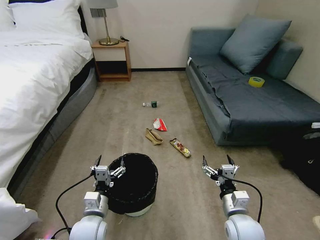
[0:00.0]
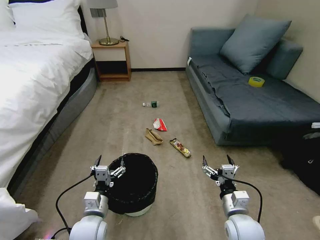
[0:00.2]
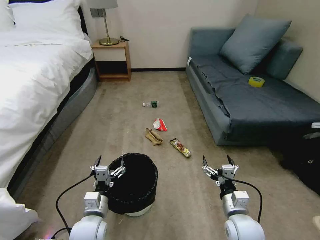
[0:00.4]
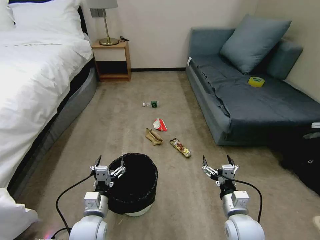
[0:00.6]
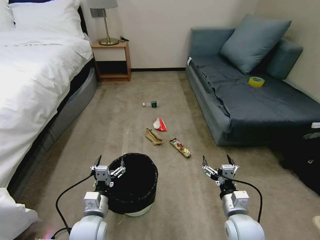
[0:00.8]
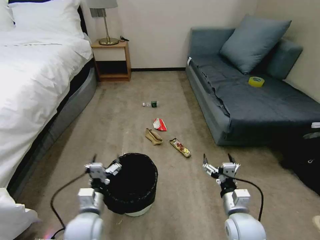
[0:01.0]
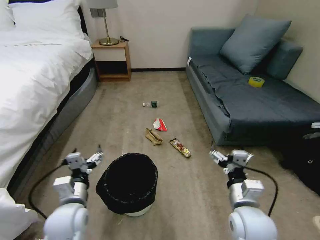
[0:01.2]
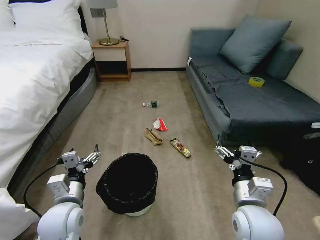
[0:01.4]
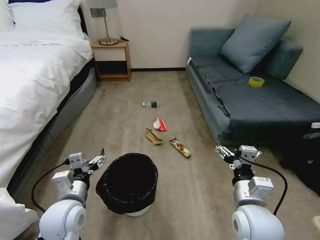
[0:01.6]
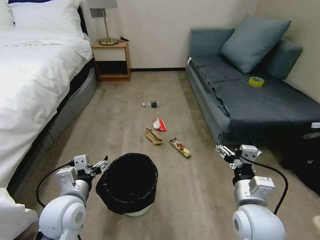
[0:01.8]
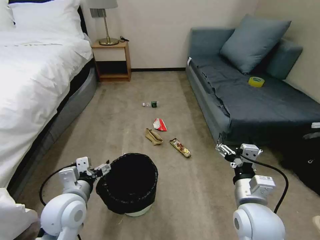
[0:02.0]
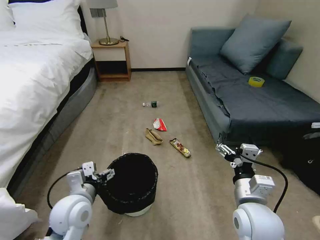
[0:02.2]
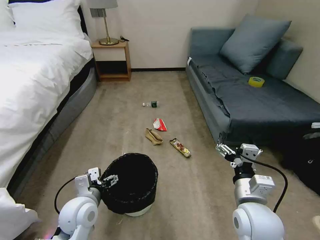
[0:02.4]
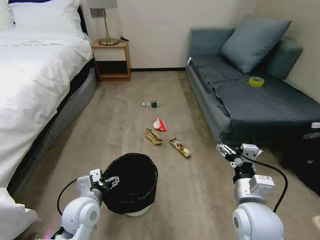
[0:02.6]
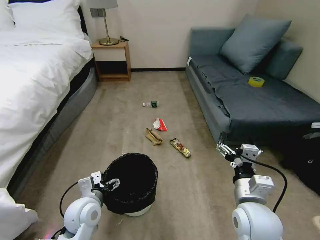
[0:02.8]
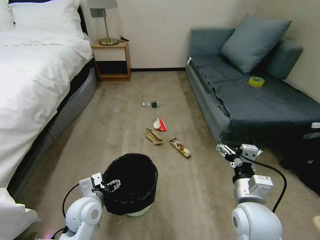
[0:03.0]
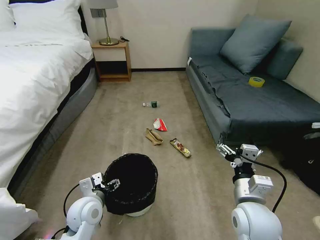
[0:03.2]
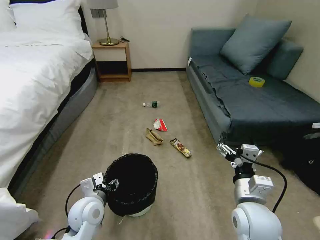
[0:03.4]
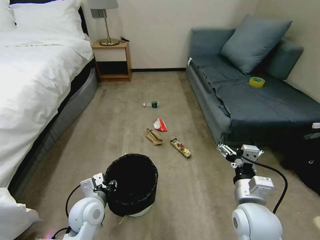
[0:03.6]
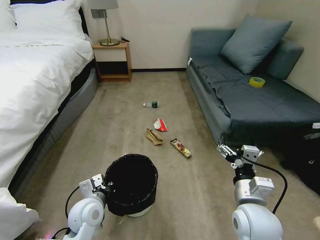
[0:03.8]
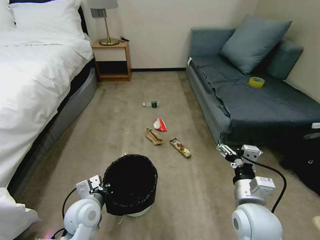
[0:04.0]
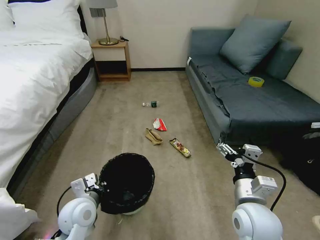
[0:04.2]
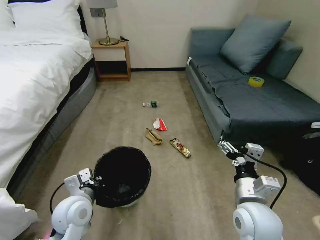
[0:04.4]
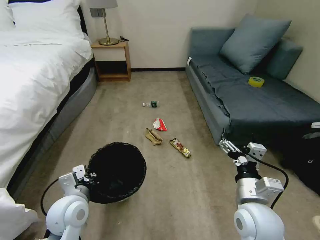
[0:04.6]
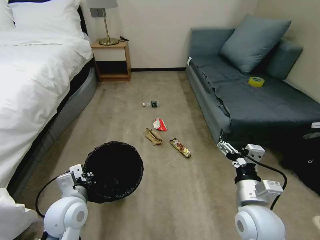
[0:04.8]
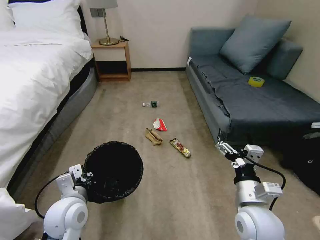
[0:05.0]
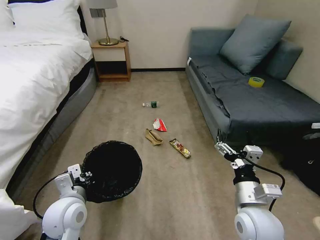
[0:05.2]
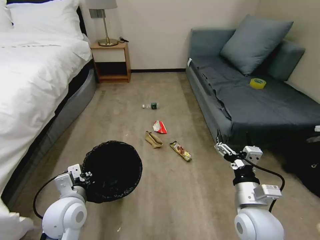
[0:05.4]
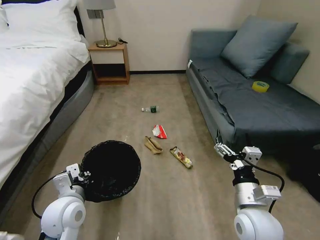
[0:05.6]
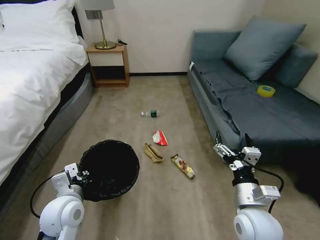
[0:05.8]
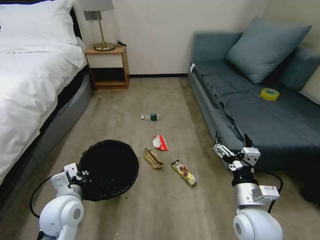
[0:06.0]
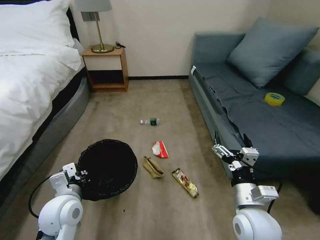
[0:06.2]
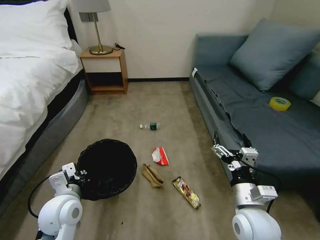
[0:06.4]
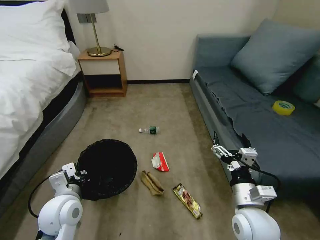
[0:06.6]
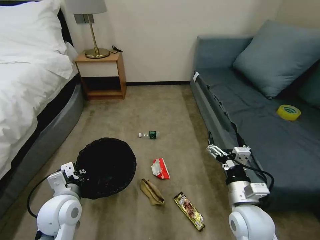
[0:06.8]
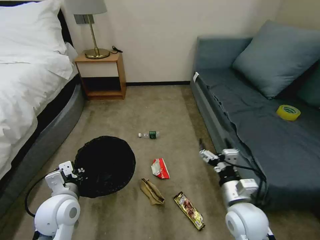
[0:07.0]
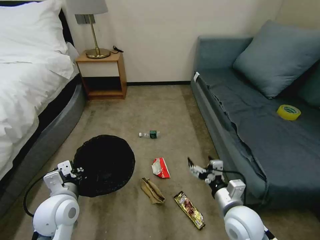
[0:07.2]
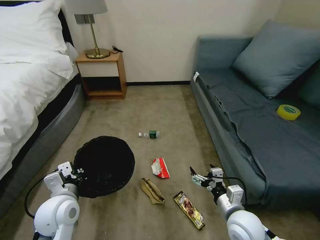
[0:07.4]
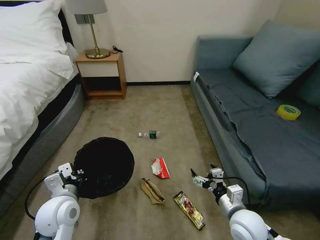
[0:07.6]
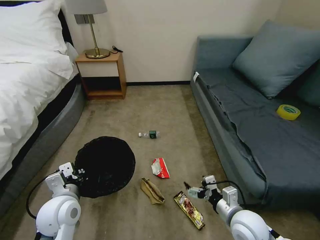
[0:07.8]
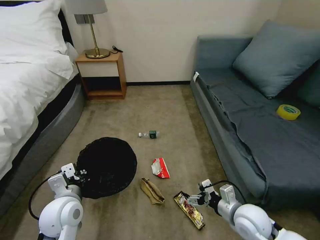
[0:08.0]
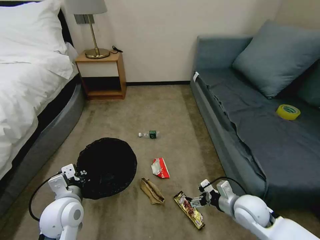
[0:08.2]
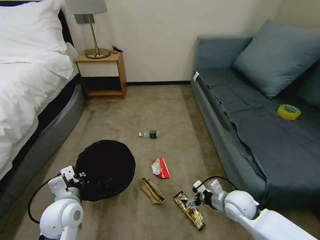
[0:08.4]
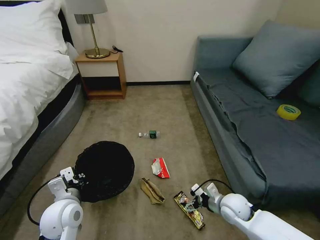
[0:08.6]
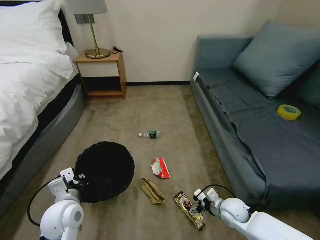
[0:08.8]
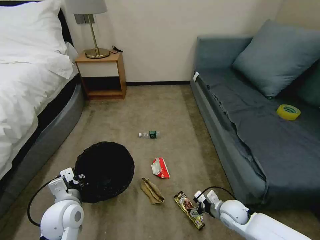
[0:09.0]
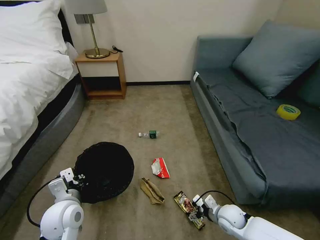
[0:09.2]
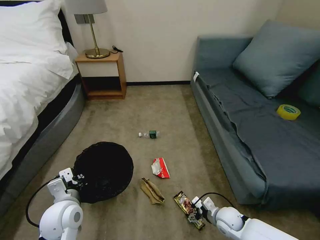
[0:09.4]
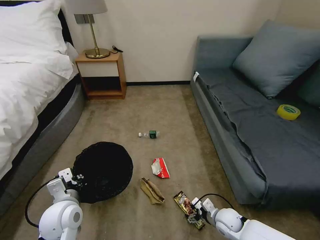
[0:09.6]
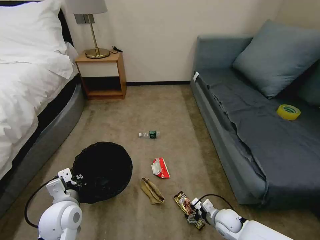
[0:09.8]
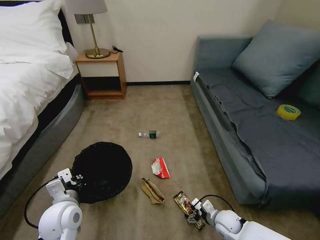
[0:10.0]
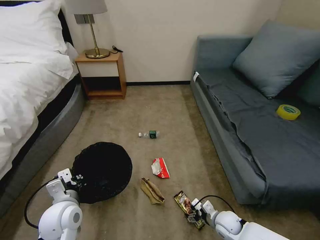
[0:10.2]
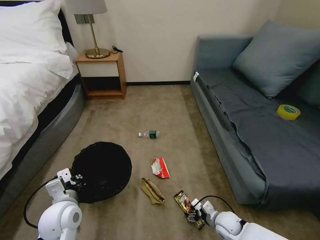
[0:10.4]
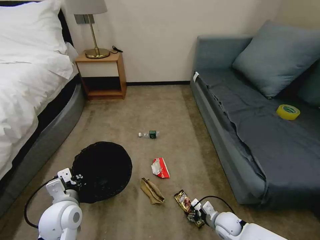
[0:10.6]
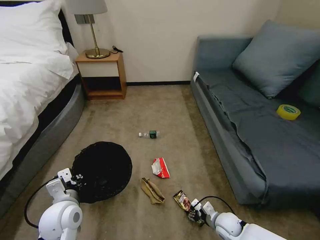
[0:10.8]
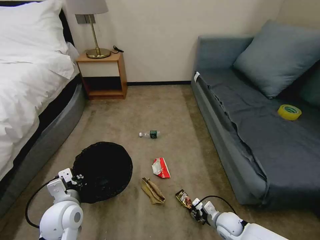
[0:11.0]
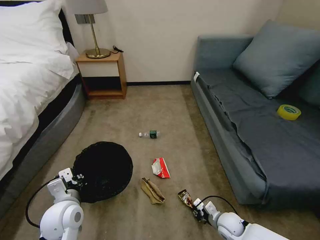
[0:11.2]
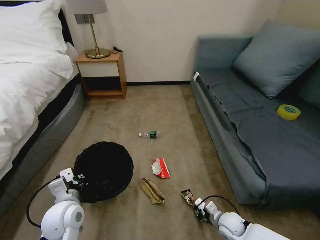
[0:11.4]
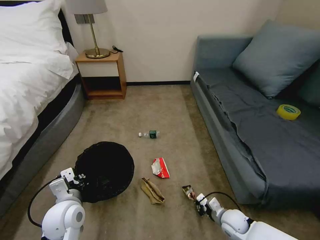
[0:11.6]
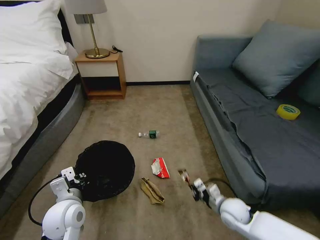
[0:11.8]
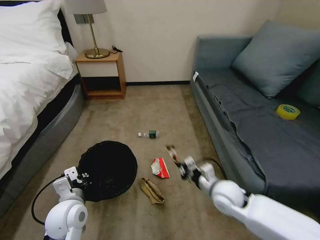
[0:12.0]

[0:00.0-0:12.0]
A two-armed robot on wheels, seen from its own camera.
Task of the whole recording: Pick up the trash bin, then pick up the garbage on the floor and place it into the trash bin.
0:01.6 to 0:03.0: The left gripper shifts roughly 5 cm downward.
0:03.0 to 0:04.4: The left gripper closes its fingers.
0:06.0 to 0:07.6: The right gripper goes approximately 10 cm downward.
0:07.6 to 0:09.0: The right gripper travels downward and forward by approximately 15 cm.
0:09.0 to 0:10.4: The right gripper travels downward by about 5 cm.
0:10.4 to 0:12.0: The right gripper is displaced upward by roughly 20 cm, and closes.

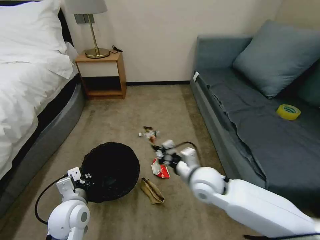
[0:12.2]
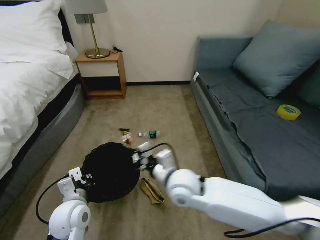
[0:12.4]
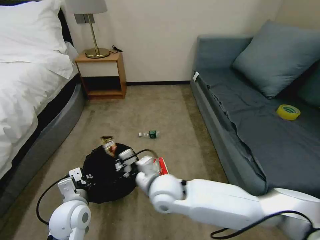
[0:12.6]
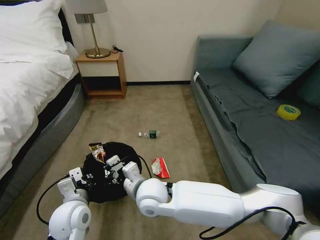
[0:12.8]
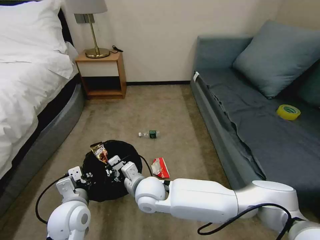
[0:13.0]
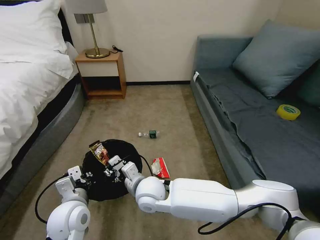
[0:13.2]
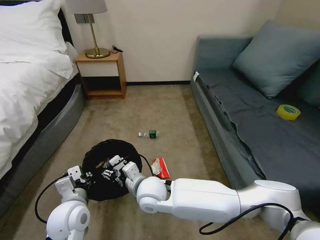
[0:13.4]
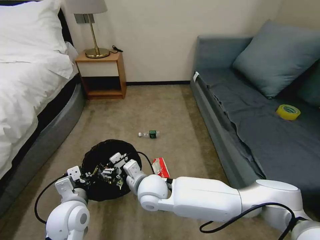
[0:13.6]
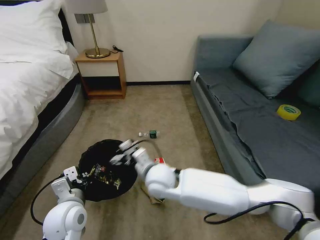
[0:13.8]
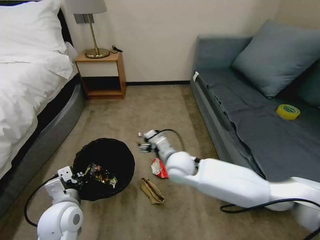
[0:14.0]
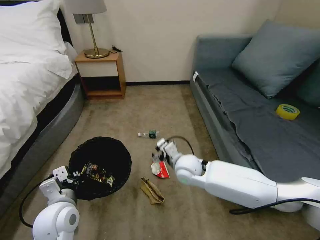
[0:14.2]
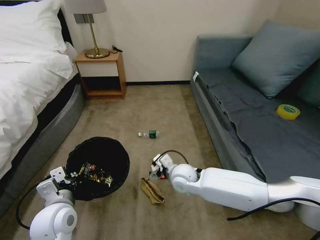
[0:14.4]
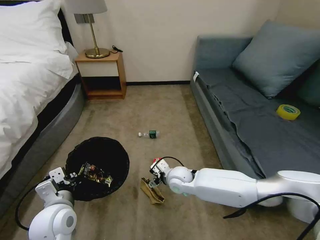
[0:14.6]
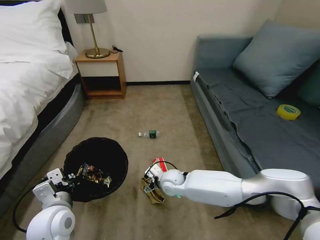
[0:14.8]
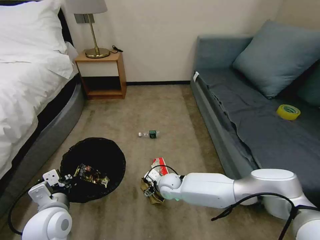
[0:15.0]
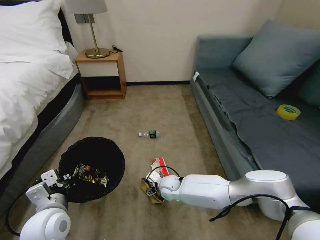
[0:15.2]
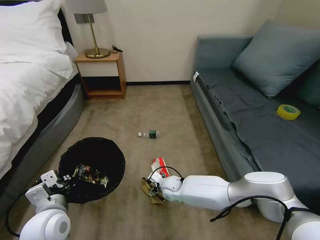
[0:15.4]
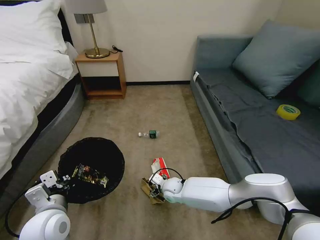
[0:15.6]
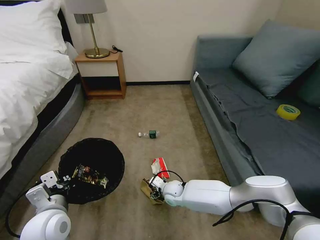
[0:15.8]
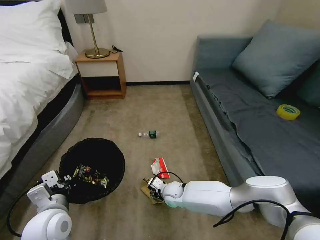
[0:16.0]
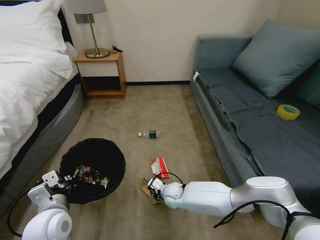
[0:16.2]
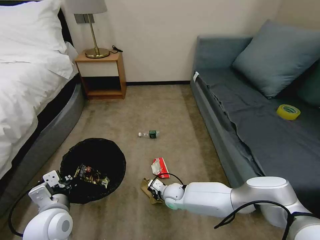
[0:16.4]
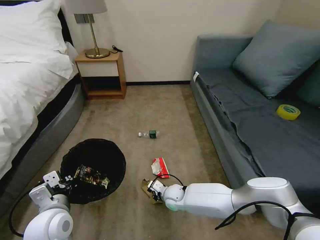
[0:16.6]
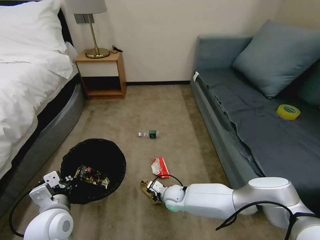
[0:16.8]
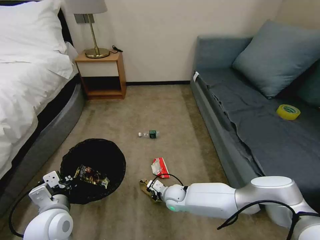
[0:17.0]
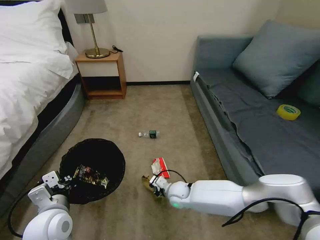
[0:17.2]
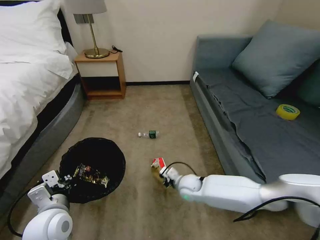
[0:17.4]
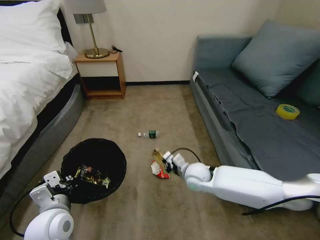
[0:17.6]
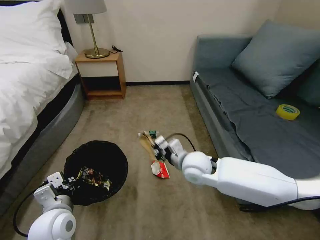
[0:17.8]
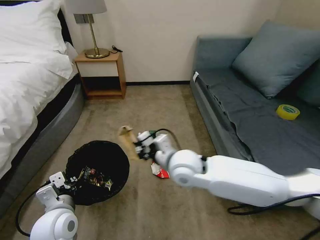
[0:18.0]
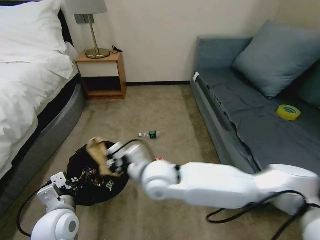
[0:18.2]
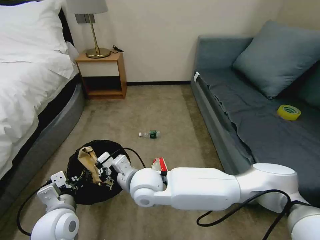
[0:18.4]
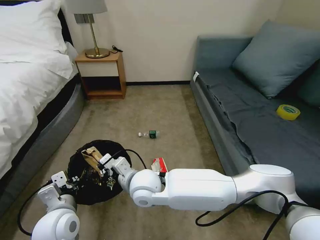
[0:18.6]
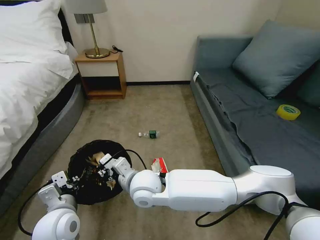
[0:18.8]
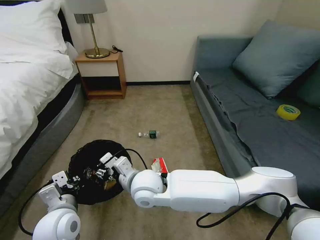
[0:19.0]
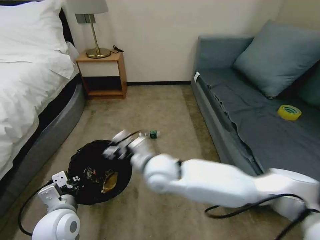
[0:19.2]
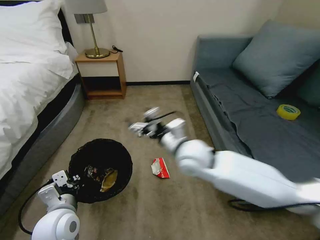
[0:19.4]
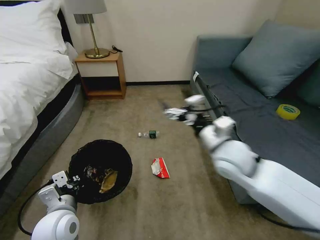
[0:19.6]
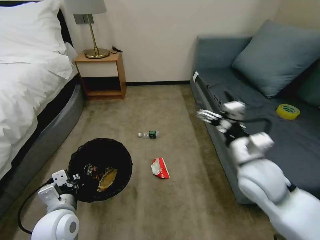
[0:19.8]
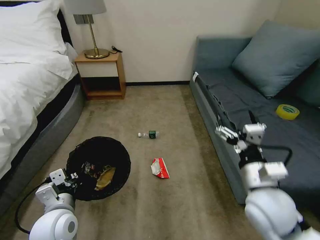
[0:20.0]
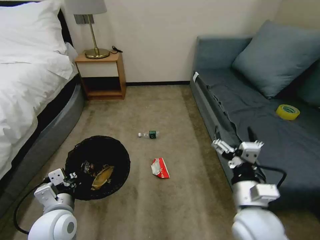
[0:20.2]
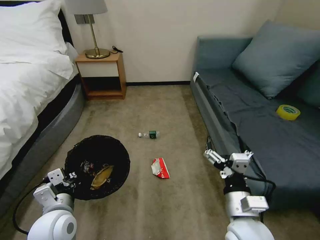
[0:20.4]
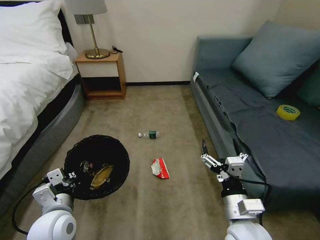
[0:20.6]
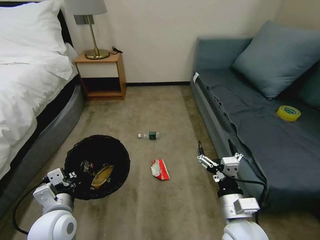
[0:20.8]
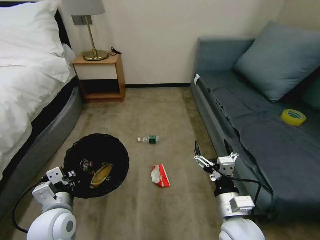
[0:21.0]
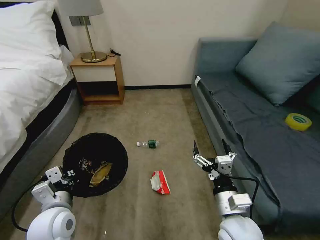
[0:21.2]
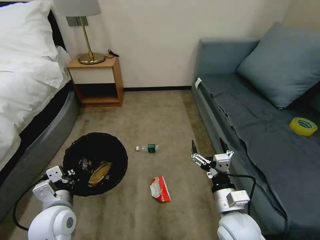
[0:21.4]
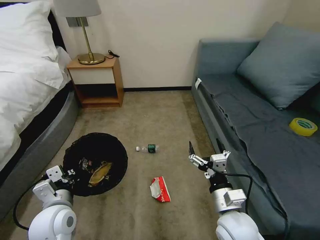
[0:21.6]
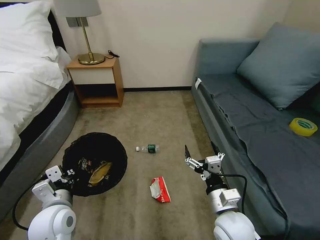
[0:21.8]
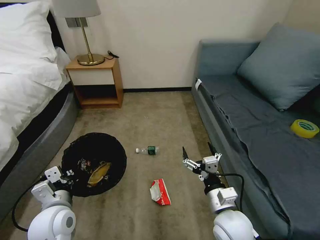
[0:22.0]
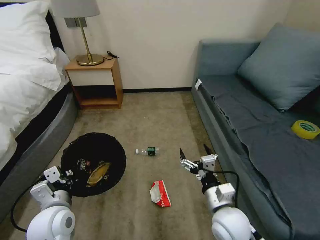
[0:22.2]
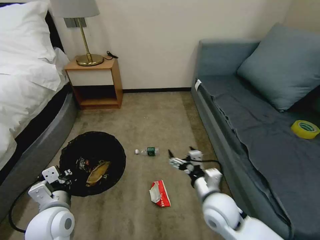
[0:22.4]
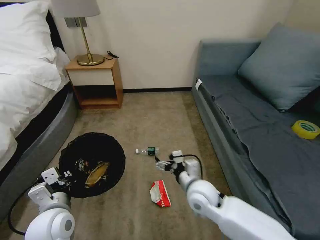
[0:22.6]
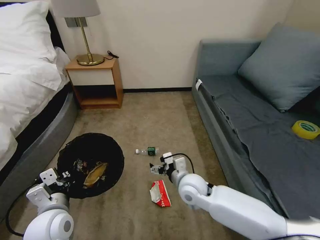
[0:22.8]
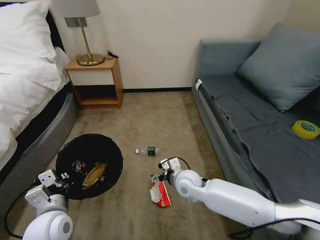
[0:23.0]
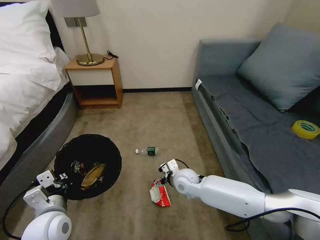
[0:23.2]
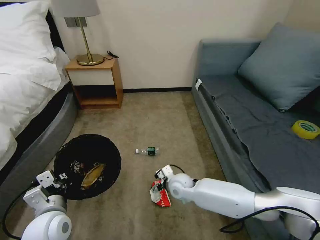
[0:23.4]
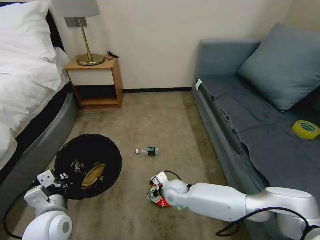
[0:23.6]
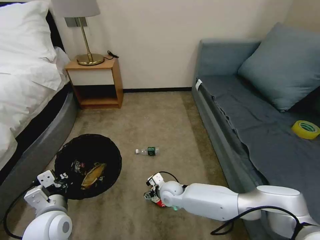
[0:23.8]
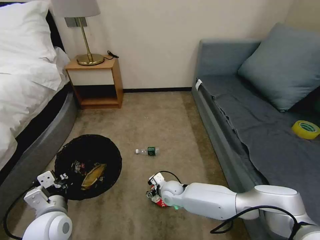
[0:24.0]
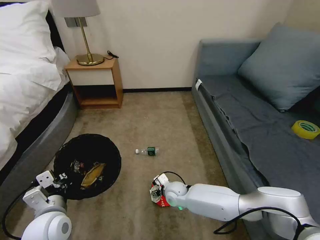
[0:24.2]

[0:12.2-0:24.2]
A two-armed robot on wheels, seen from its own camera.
Task of the whole recording: Pick up the trash bin, then pick up the garbage on the floor and place it into the trash bin.
0:12.2 to 0:13.8: The right gripper heads to the left, covering approximately 15 cm, and opens.
0:13.8 to 0:15.2: The right gripper travels downward by roughly 20 cm.
0:15.2 to 0:16.6: The right gripper closes.
0:16.6 to 0:18.2: The right gripper moves upward, approximately 25 cm.
0:18.2 to 0:19.8: The right gripper is displaced to the right by roughly 25 cm, and opens its fingers.
0:19.8 to 0:21.2: The right gripper travels downward and backward by some 15 cm.
0:21.2 to 0:22.6: The right gripper moves forward and to the left, some 10 cm.
0:22.6 to 0:24.2: The right gripper moves downward, forward and to the left, approximately 20 cm.
